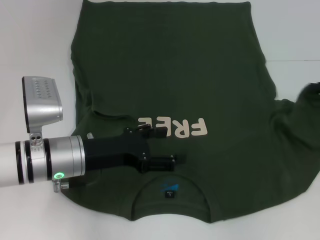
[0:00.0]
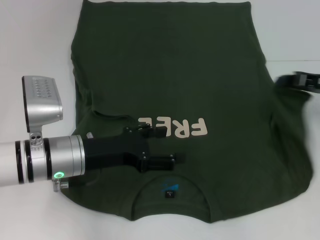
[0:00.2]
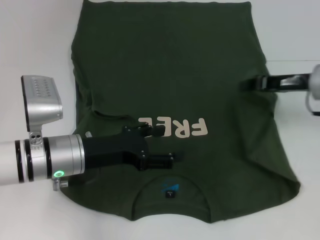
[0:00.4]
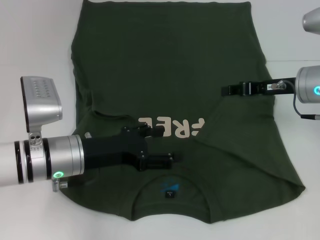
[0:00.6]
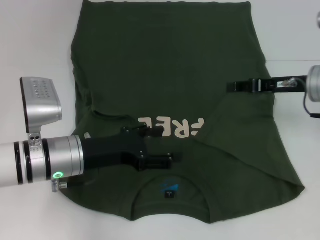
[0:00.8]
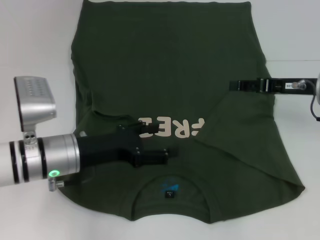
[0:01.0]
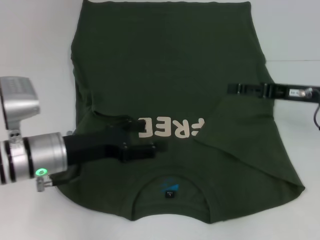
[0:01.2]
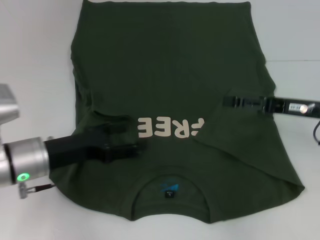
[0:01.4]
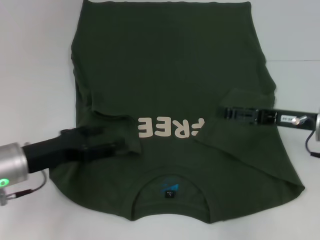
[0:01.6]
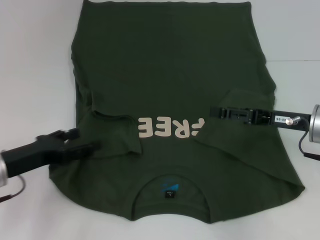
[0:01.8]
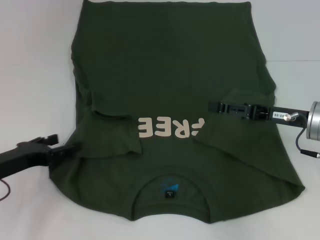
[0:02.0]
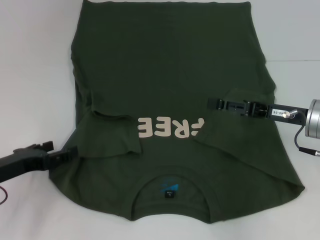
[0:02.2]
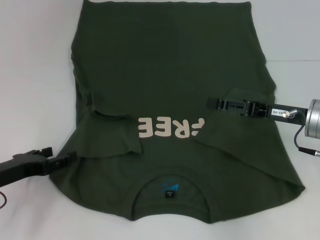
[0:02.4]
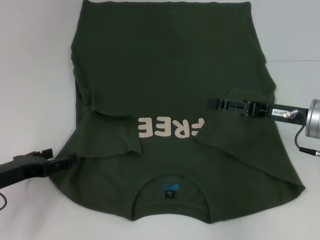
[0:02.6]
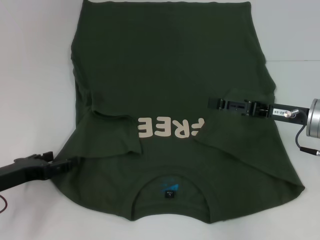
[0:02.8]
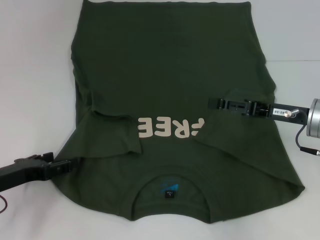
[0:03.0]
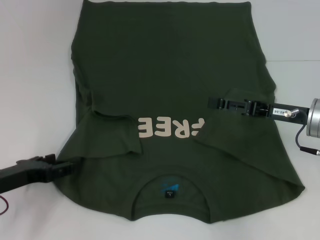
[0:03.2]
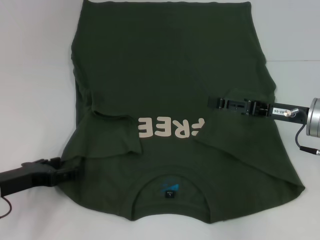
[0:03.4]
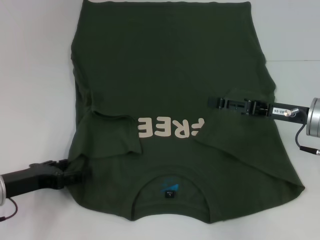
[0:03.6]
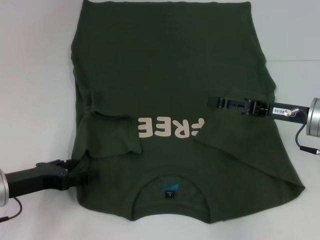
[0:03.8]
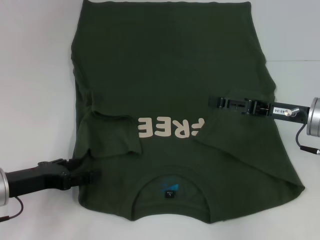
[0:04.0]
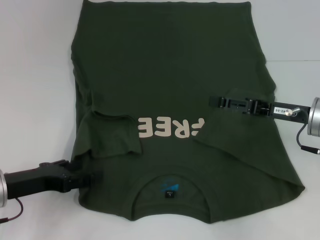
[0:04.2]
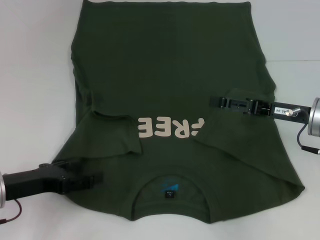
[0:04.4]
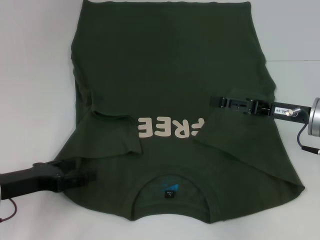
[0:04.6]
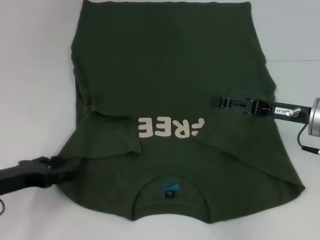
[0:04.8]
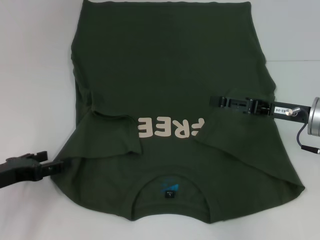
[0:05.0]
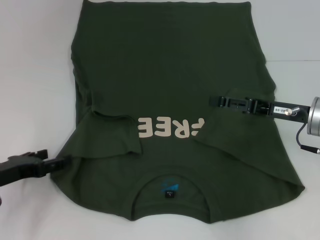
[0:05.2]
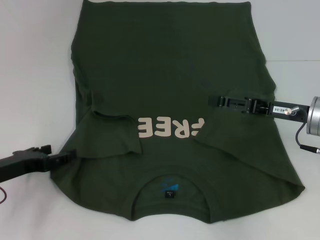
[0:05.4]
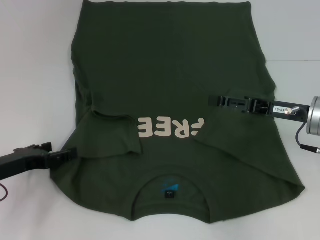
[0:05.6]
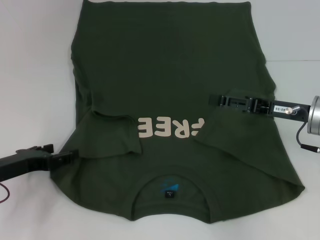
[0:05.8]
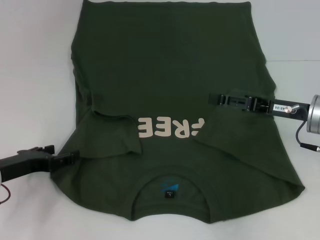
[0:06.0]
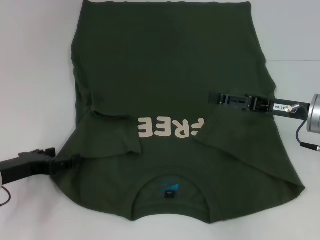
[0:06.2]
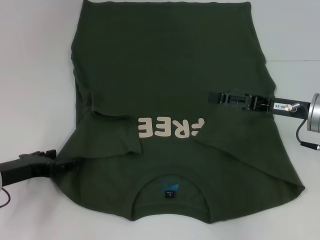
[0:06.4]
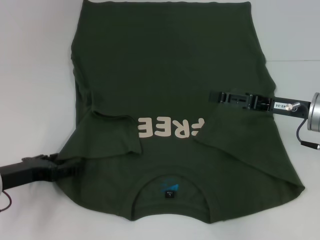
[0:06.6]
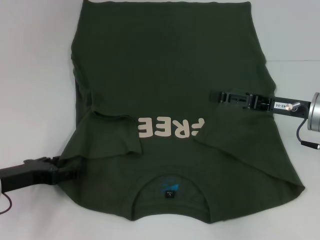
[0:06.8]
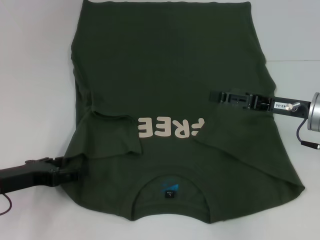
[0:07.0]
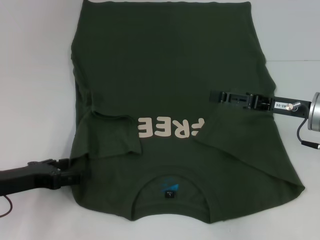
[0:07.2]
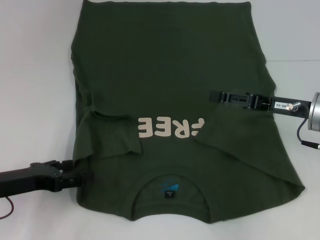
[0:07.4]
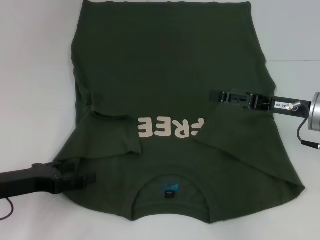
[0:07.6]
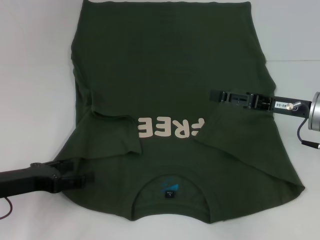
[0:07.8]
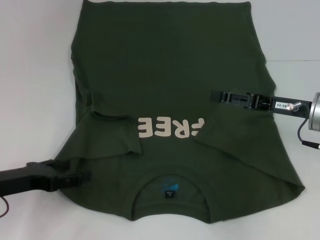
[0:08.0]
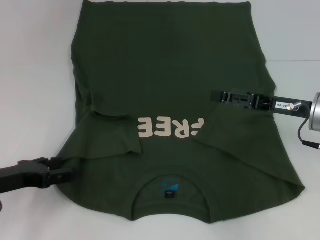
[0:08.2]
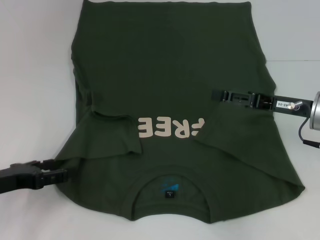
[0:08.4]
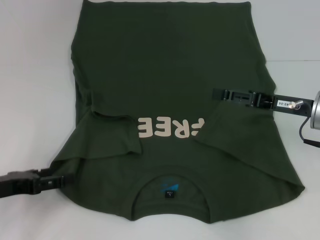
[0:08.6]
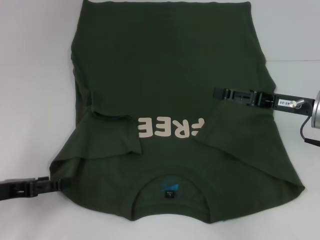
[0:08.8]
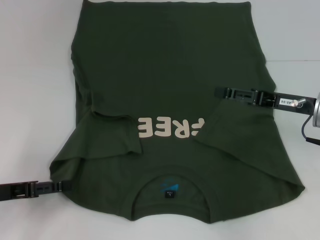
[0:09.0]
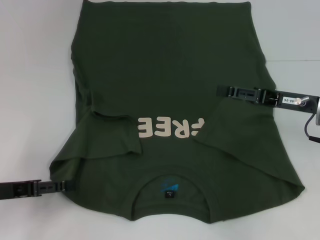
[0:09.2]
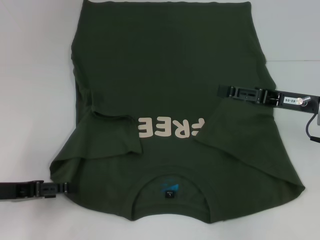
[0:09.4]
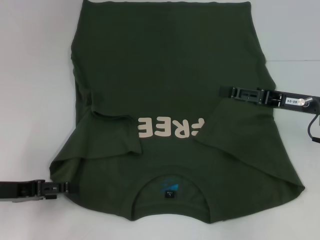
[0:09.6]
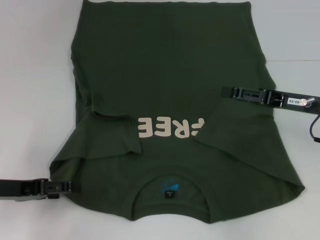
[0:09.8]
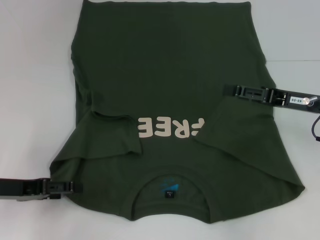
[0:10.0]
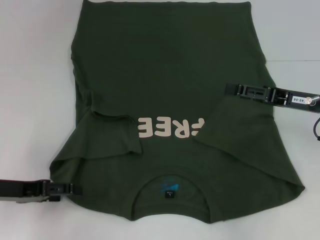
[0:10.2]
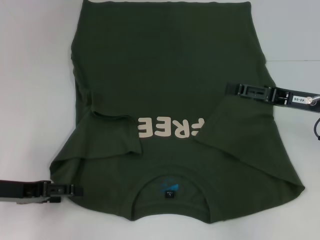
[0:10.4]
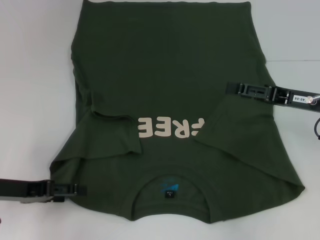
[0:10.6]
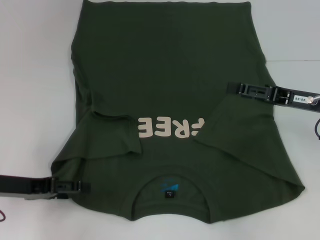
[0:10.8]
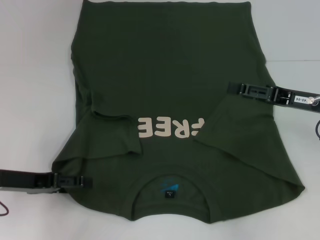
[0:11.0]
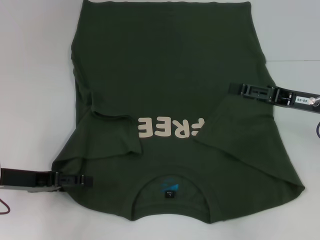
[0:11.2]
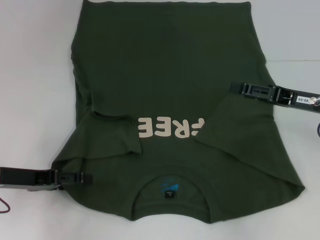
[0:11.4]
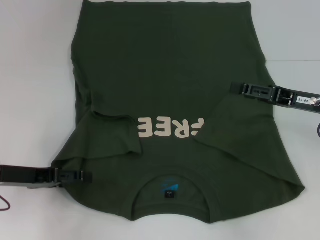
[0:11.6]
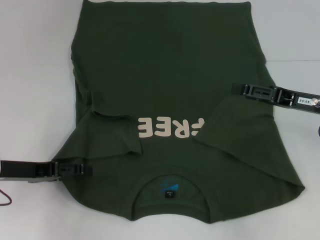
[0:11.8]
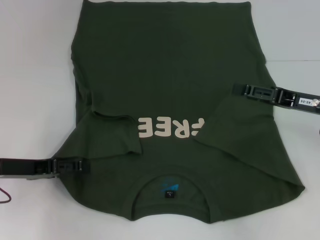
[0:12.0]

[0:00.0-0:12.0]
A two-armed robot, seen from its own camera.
0:00.0 to 0:01.6: The two grippers go roughly 10 cm to the left. The right gripper opens its fingers.
0:01.6 to 0:03.0: The left gripper travels to the left by about 5 cm.
0:03.0 to 0:07.6: The grippers move only a little.
0:09.0 to 0:12.0: The grippers stay close to where they were, moving slightly.

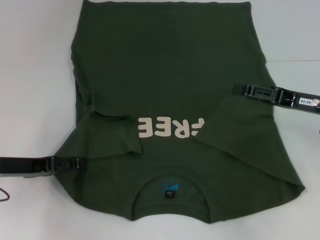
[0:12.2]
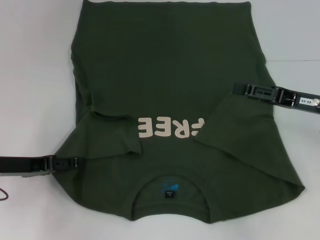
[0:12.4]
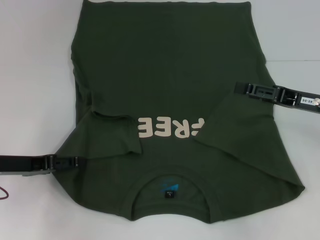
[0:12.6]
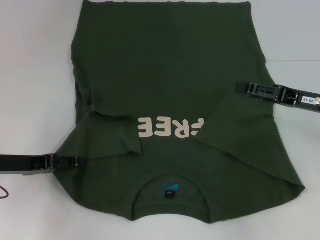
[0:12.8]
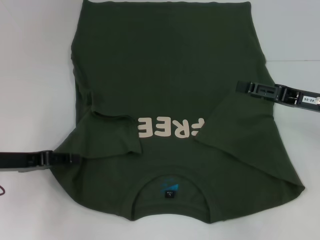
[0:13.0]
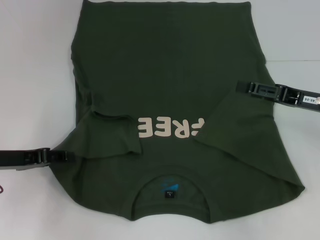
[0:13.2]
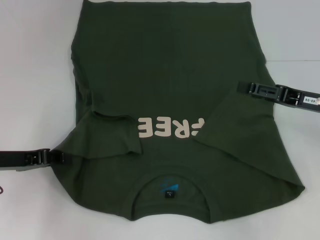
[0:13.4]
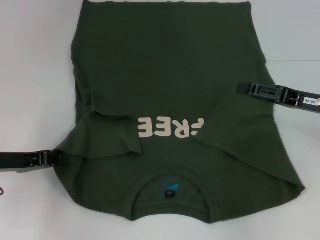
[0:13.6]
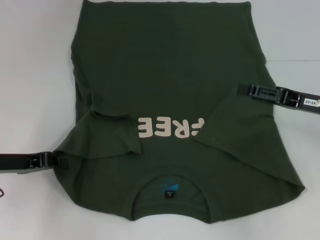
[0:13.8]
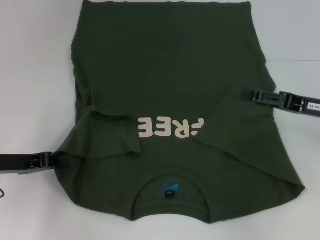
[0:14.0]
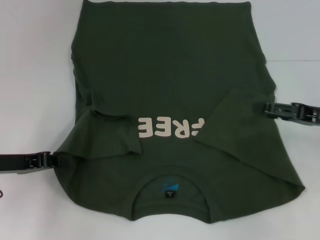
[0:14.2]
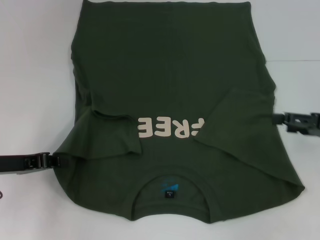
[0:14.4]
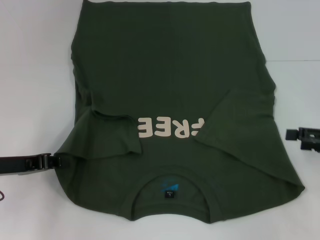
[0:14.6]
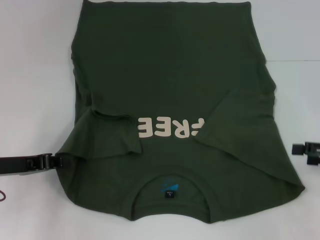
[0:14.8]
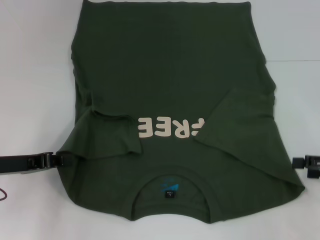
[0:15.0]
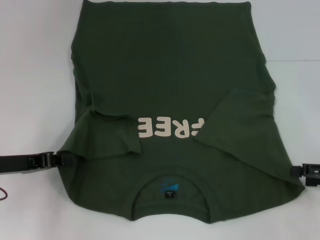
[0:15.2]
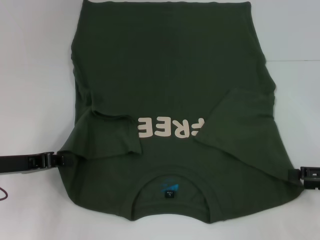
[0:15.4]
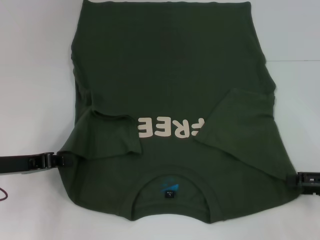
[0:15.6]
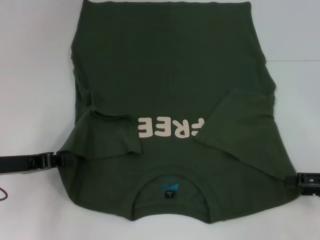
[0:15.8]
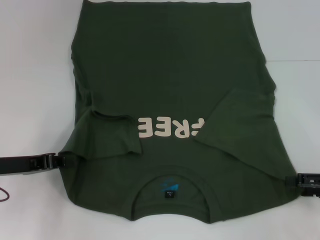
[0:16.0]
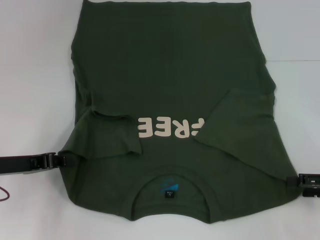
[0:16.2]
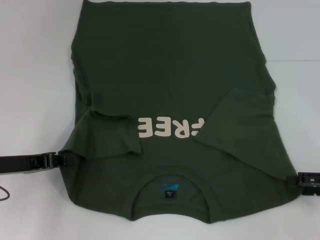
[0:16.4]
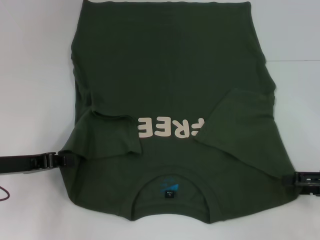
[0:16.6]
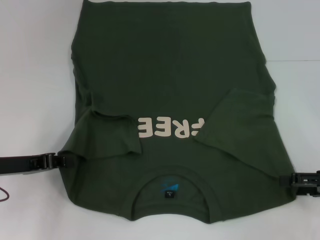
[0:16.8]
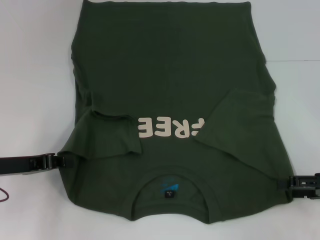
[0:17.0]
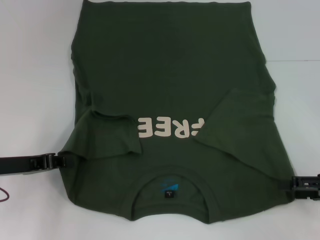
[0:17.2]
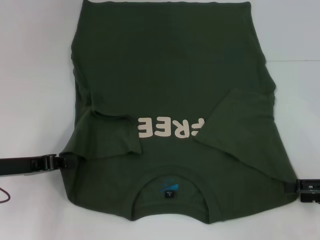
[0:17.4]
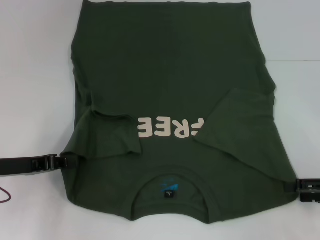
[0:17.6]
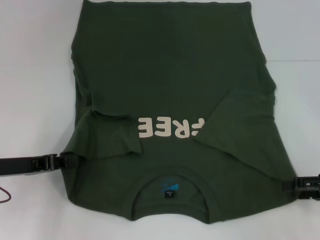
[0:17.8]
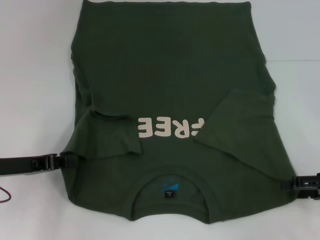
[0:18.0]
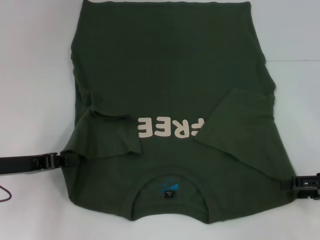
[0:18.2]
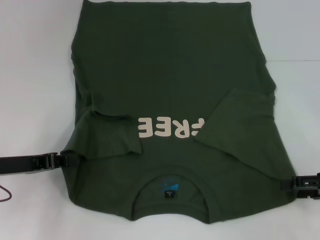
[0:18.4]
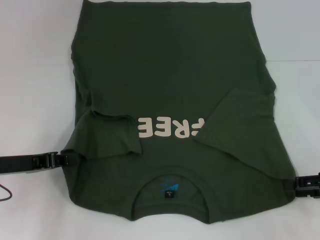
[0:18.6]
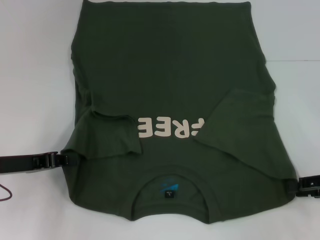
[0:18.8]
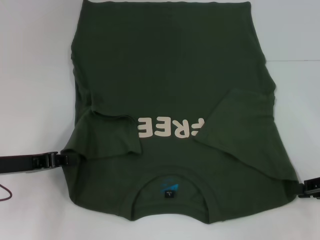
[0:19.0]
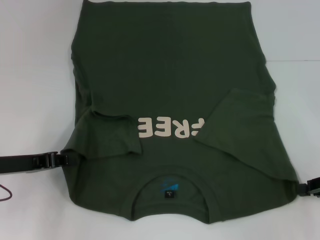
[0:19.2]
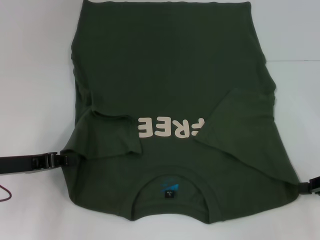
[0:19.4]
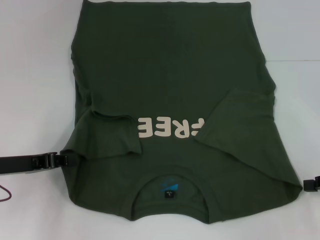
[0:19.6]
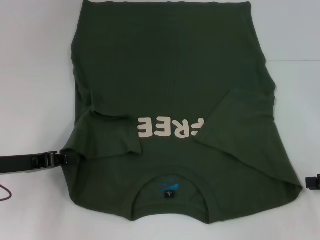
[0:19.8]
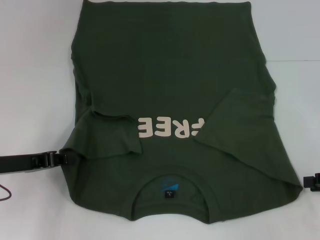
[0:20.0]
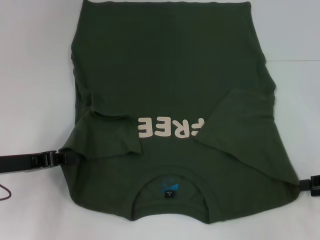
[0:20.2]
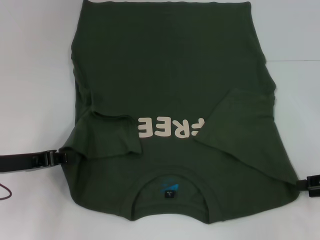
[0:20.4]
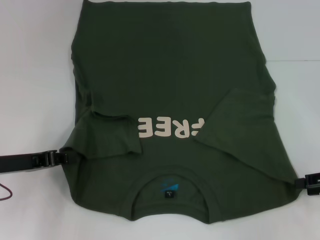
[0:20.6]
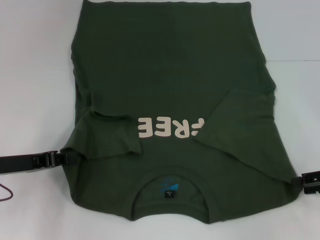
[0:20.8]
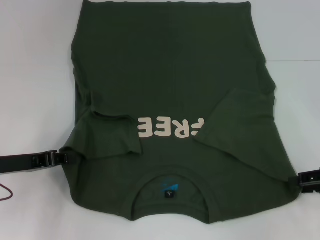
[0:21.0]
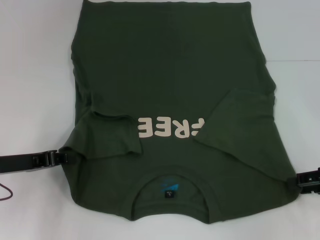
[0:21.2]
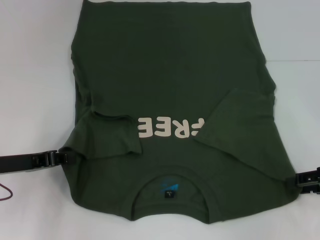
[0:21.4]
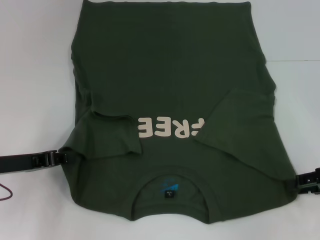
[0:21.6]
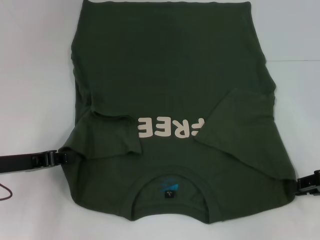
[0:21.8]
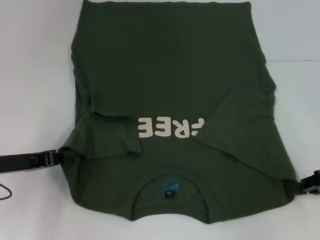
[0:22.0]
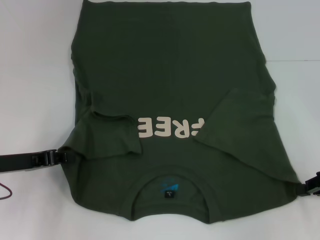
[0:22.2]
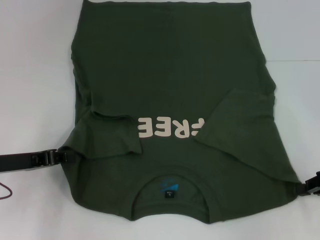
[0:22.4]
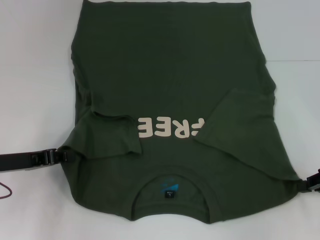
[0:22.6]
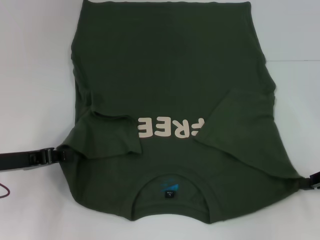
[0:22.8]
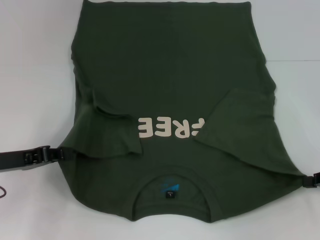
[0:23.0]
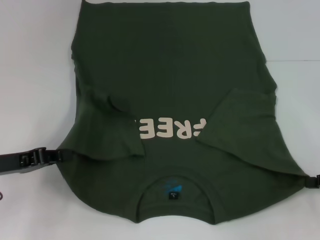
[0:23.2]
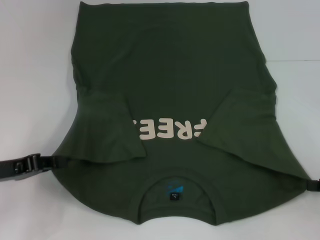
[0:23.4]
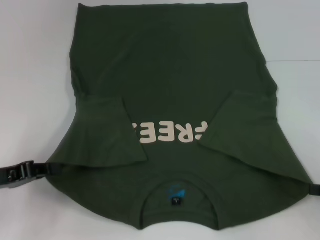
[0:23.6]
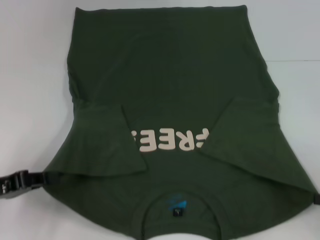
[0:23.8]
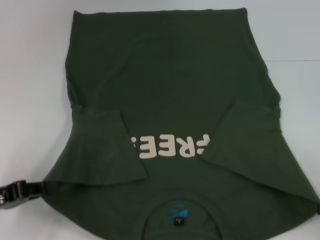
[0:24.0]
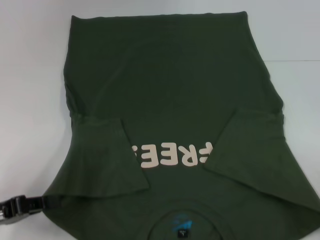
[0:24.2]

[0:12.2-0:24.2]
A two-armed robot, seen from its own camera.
Step, 0:13.8 to 0:22.2: Grab the bottom right corner with your right hand.
0:12.2 to 0:13.8: The left gripper closes up.
0:13.8 to 0:15.2: The right gripper travels to the right and backward by approximately 10 cm.
0:15.2 to 0:16.6: Both grippers stay about where they are.
0:16.6 to 0:18.2: Both grippers stay about where they are.
0:21.2 to 0:22.6: The right gripper closes its fingers.
0:22.6 to 0:24.2: The two grippers go approximately 10 cm backward.
